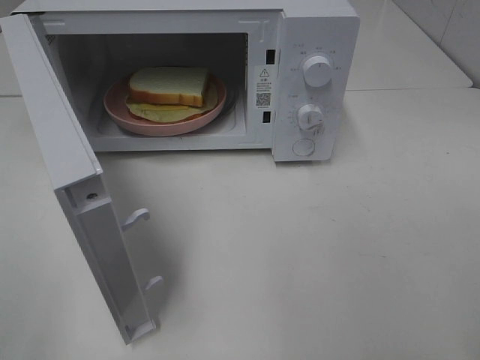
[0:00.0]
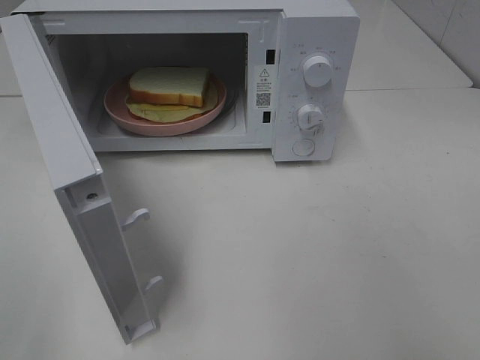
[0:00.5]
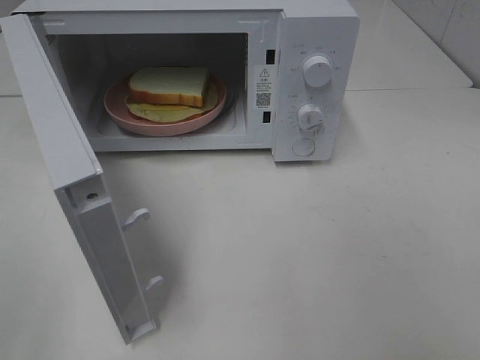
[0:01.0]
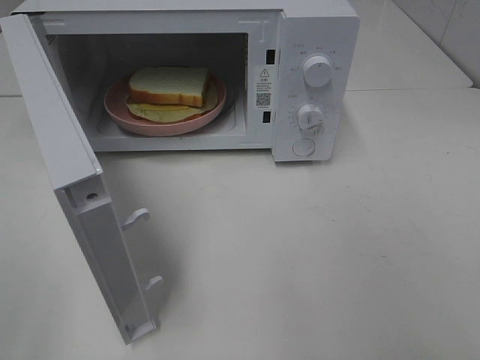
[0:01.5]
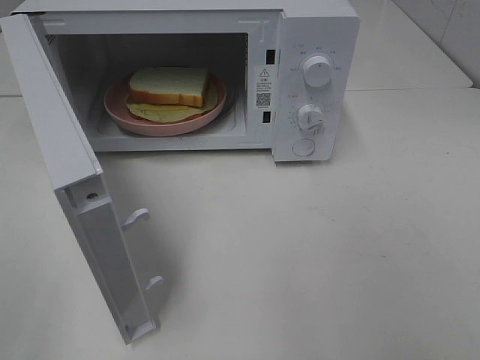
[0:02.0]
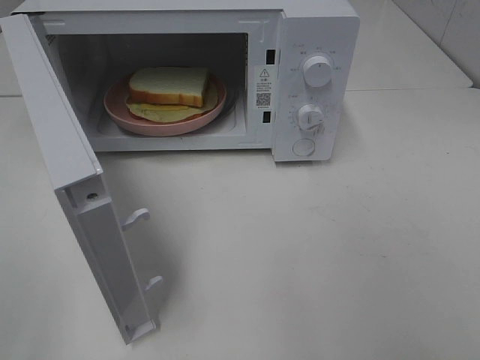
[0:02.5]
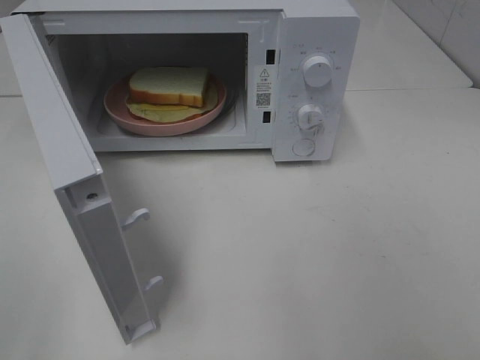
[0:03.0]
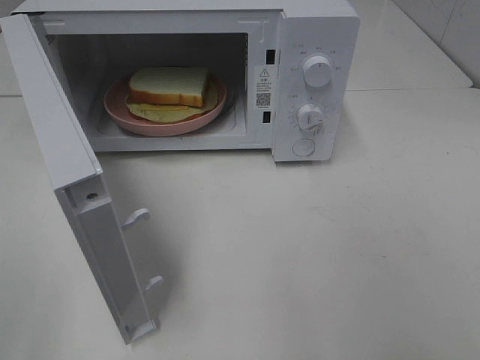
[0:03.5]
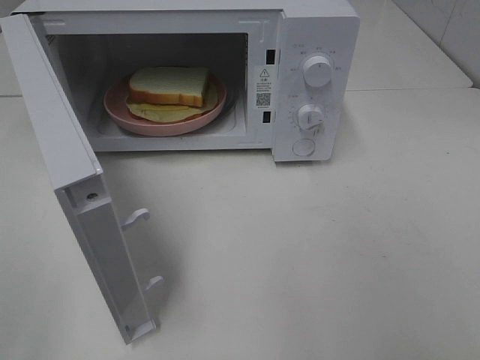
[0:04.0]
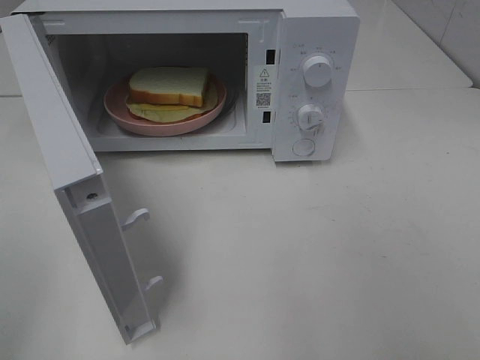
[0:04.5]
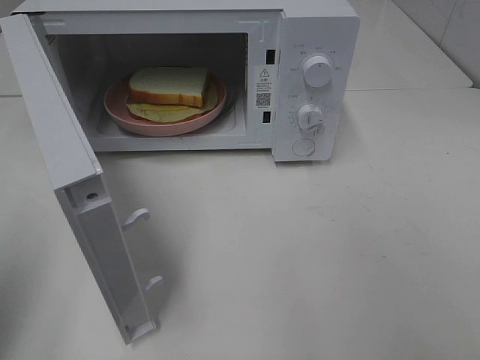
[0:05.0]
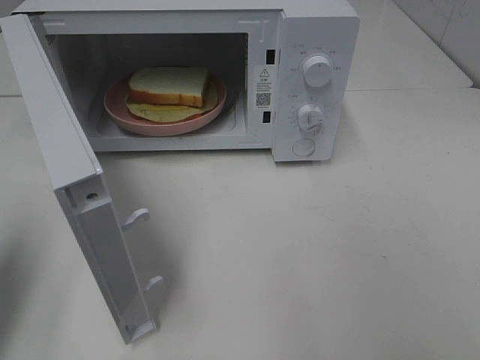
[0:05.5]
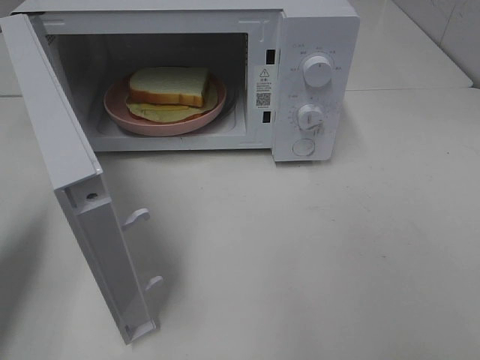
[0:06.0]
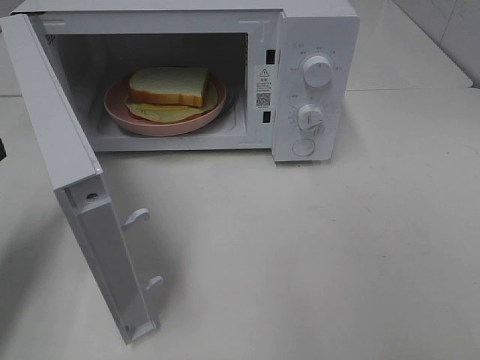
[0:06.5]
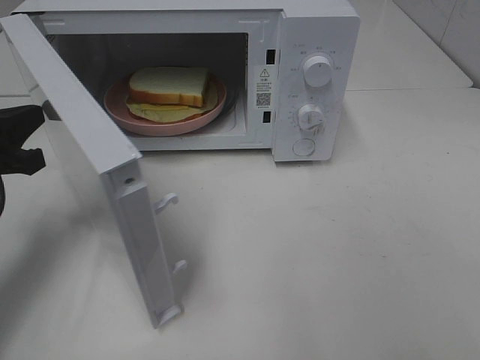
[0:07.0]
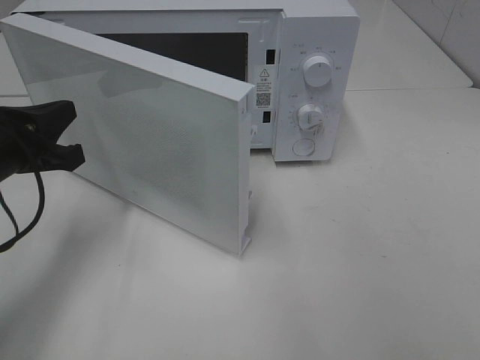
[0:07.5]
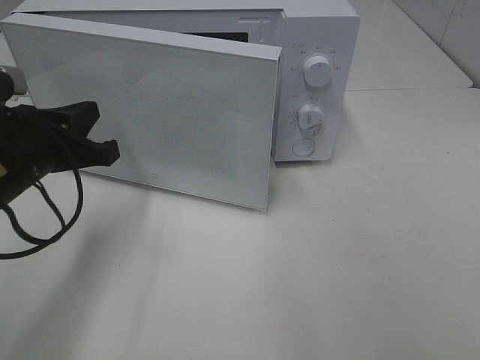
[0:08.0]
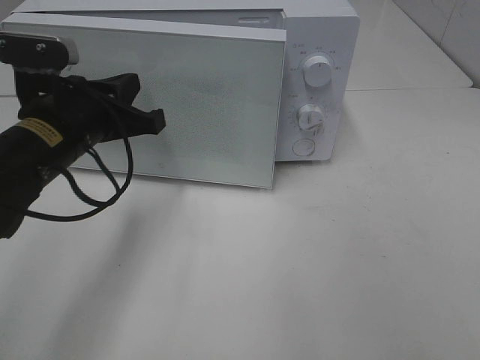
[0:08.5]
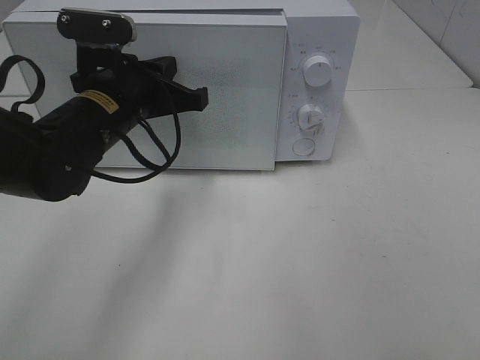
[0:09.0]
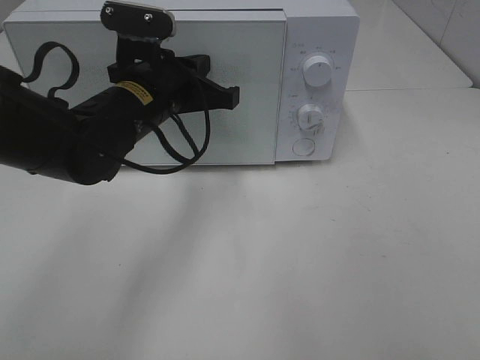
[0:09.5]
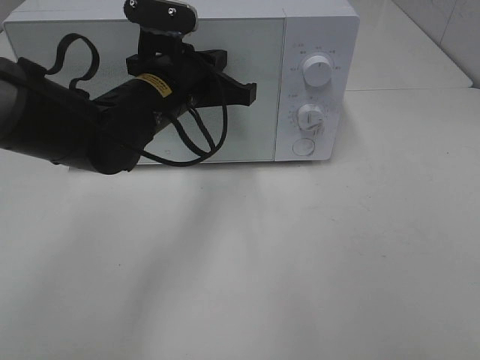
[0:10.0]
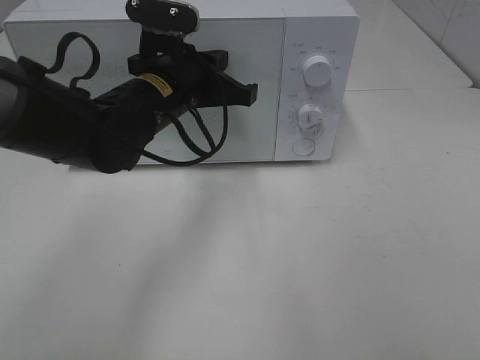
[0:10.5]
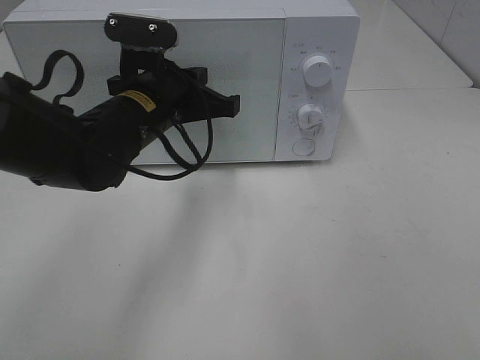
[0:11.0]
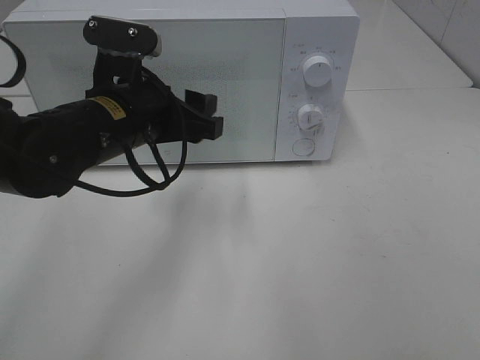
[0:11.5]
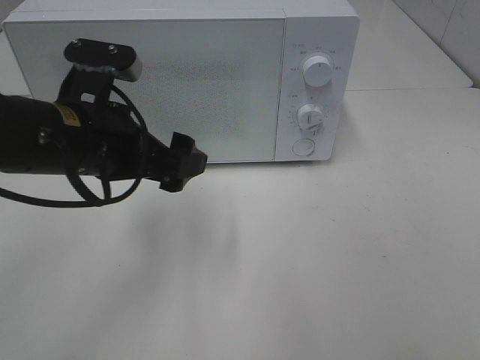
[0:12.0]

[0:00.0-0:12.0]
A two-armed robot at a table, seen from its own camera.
Task of the whole recording: Heat Sandwich.
Step, 0:00.0 to 0:11.0: Left hand: close the microwave door.
0:02.0 to 0:04.0: Both grippers stay about where they are.
0:04.0 to 0:06.0: The left gripper heads forward, covering some 20 cm, and closes up.
0:06.0 to 0:08.0: The left gripper goes about 15 cm to the right, downward and forward.
0:08.0 to 0:10.0: The left gripper heads to the right and forward, covering approximately 15 cm.
0:10.0 to 0:12.0: The left gripper is displaced backward and to the left by about 10 cm, and opens up.

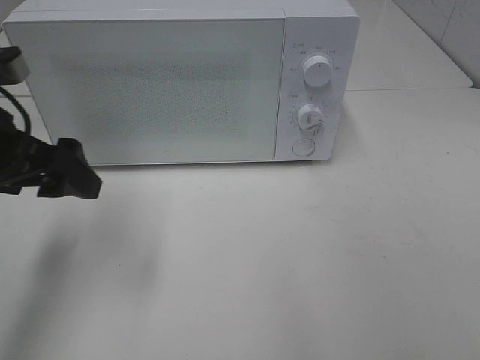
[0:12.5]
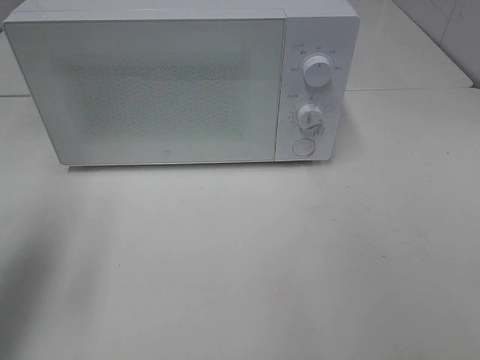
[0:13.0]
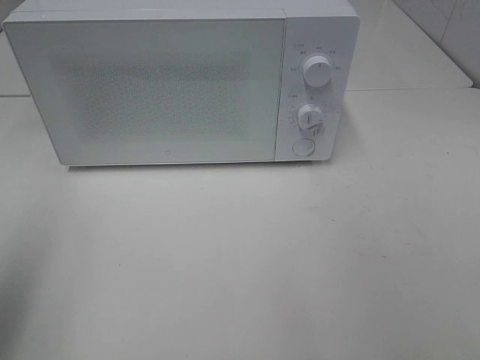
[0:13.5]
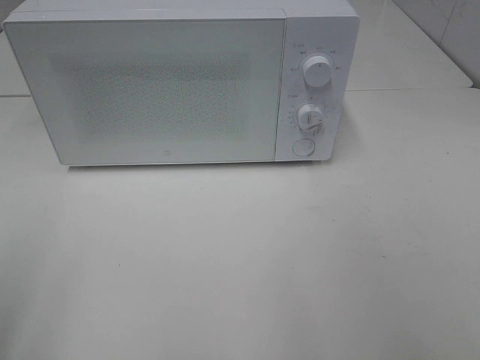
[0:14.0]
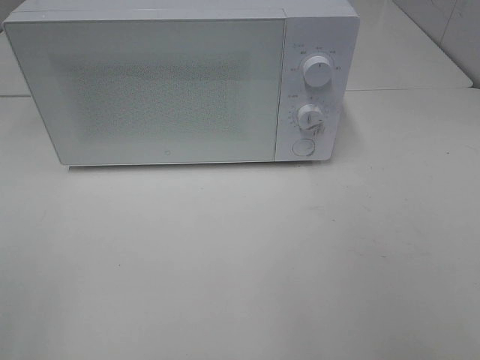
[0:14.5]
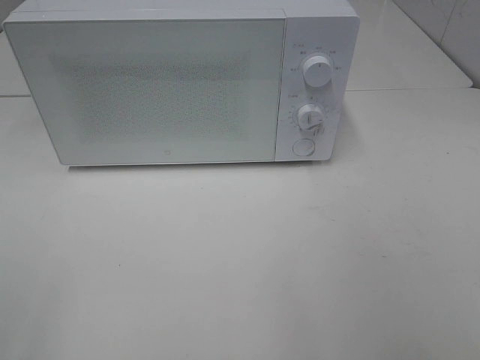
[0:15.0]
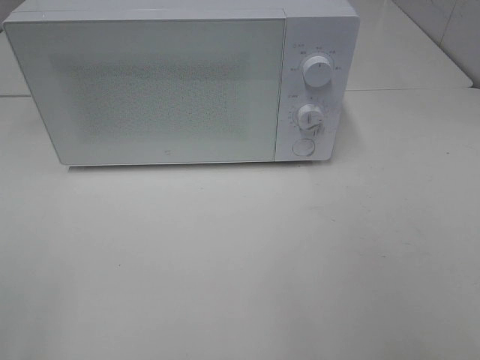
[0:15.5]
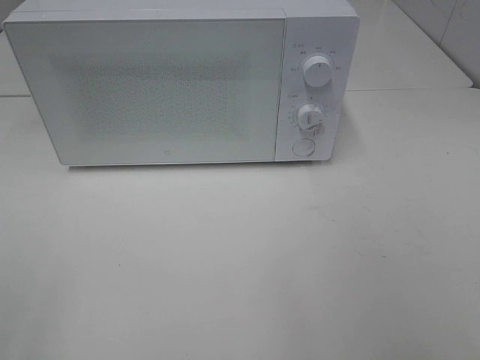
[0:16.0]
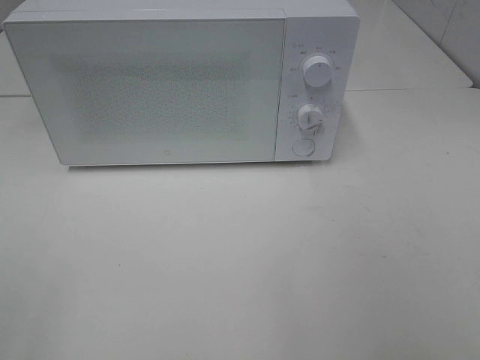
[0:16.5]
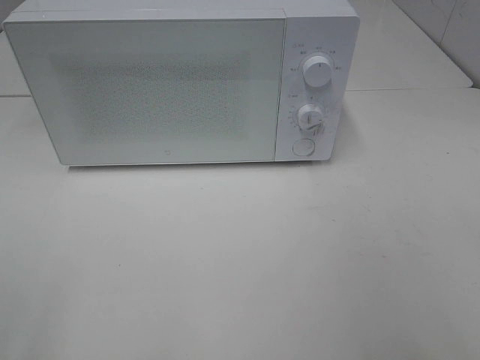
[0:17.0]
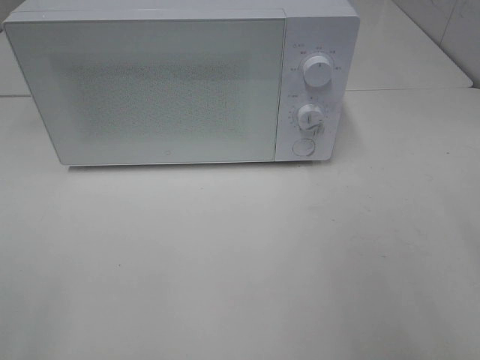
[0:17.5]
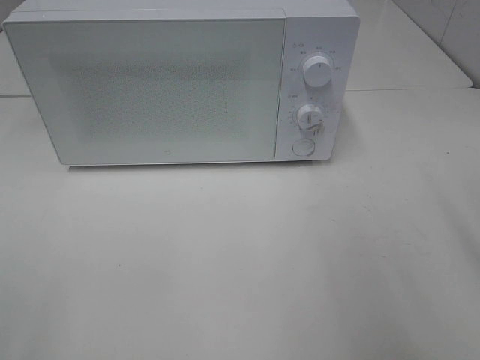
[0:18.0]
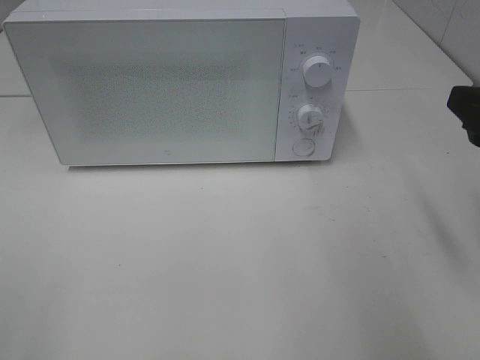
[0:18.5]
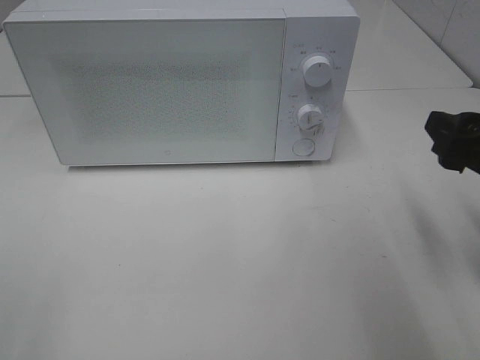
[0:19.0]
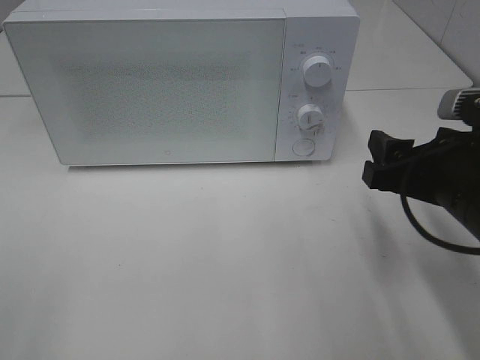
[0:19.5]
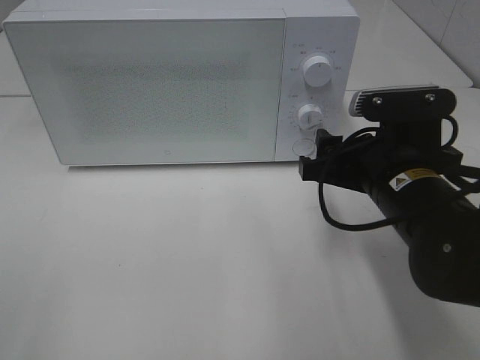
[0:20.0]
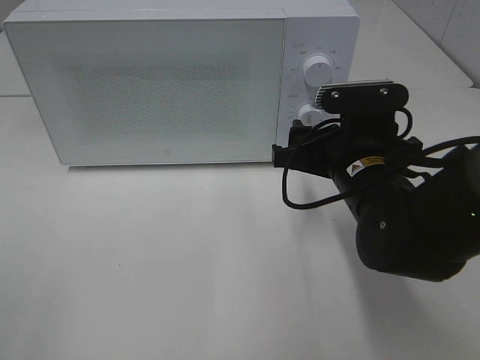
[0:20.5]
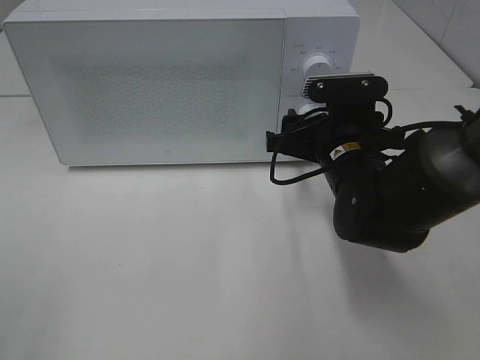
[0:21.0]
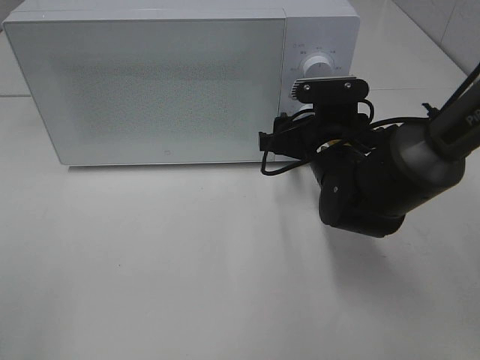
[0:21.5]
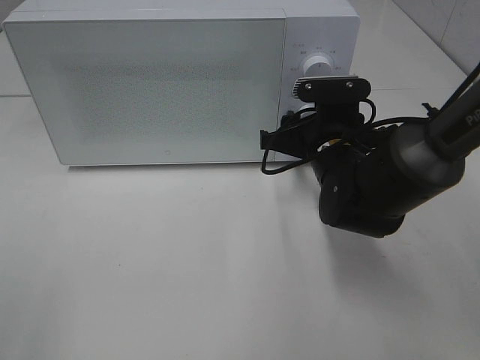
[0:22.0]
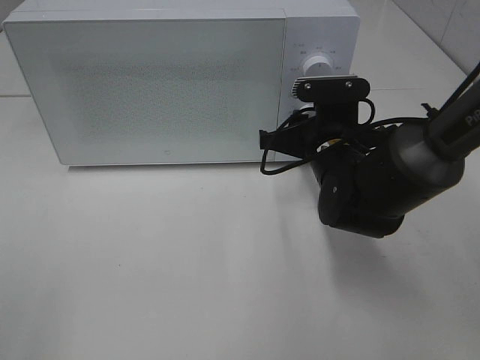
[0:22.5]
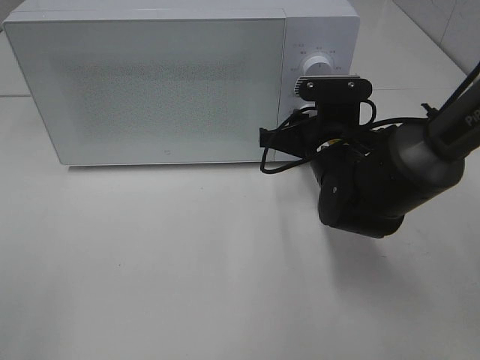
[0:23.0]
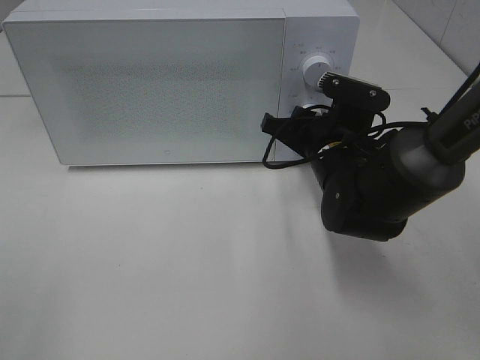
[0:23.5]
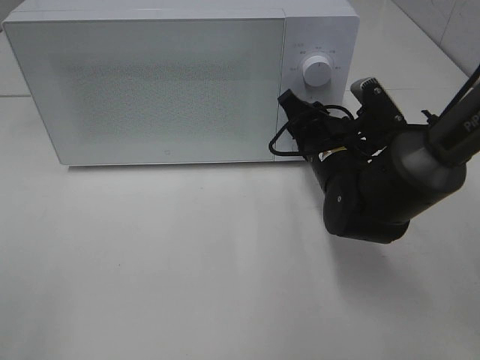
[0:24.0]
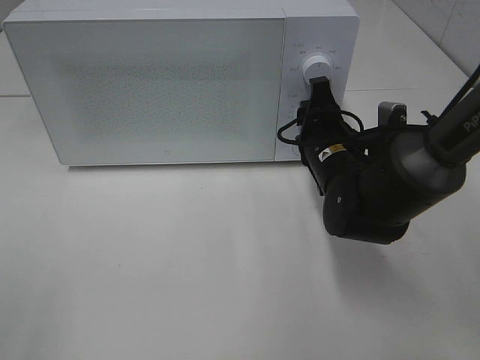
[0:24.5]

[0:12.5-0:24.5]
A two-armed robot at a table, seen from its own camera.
Task of the whole recording: Heat Sandwich.
0:12.5 to 0:14.5: The left gripper travels backward and to the left by some 25 cm.
0:16.5 to 0:18.5: The right gripper goes roughly 20 cm forward.
0:18.5 to 0:20.5: The right gripper moves to the left, downward and forward, about 20 cm.
0:20.5 to 0:22.5: The right gripper moves forward, some 5 cm, and closes its fingers.

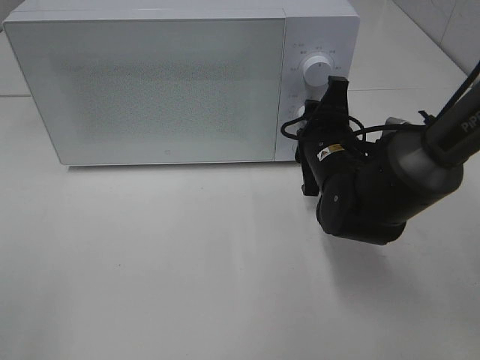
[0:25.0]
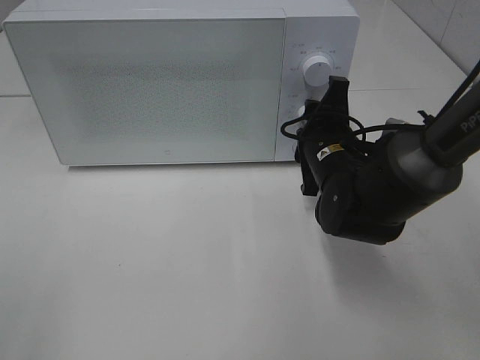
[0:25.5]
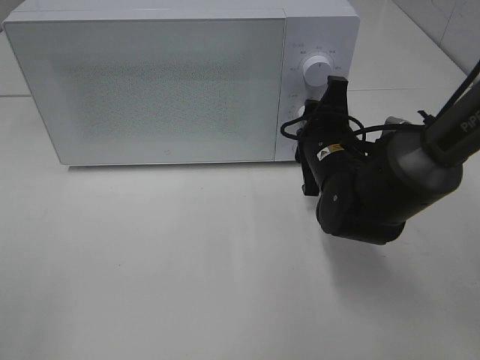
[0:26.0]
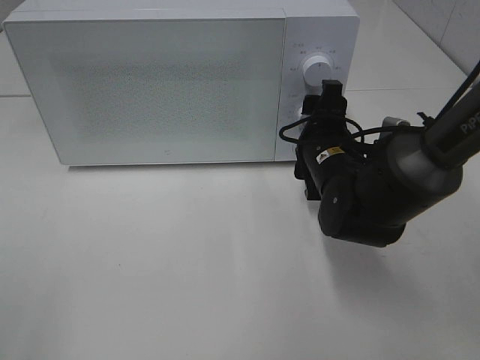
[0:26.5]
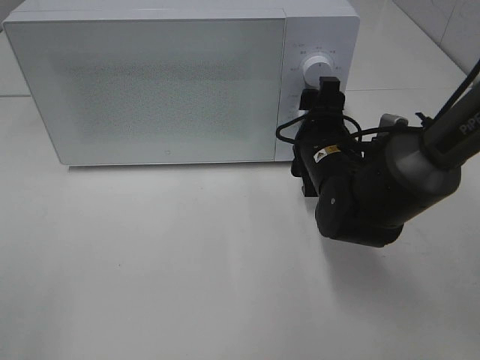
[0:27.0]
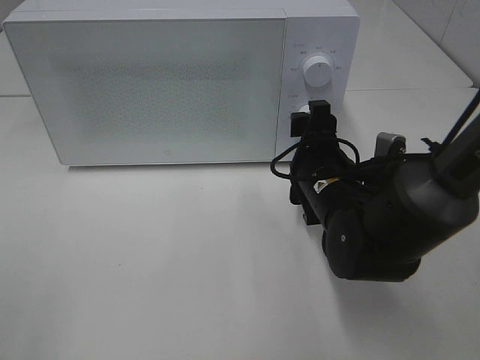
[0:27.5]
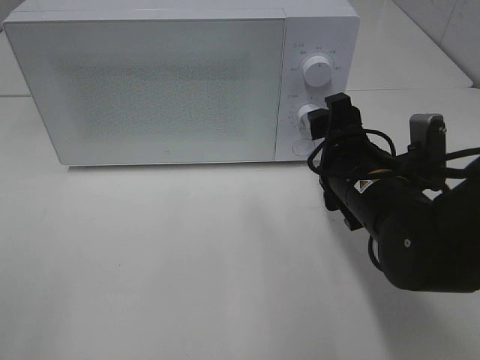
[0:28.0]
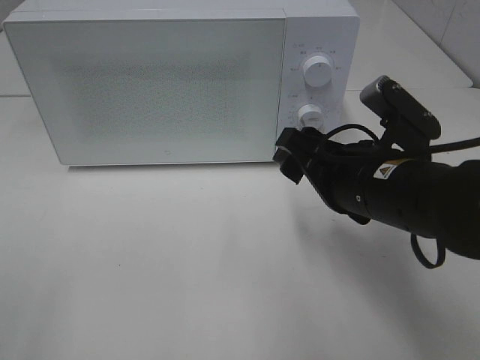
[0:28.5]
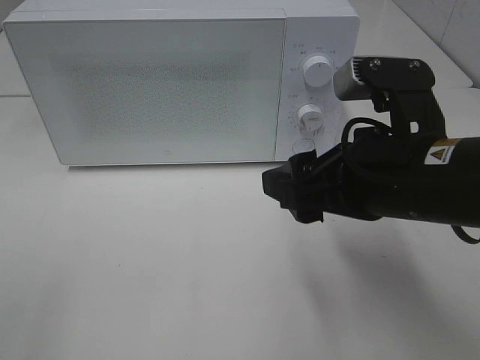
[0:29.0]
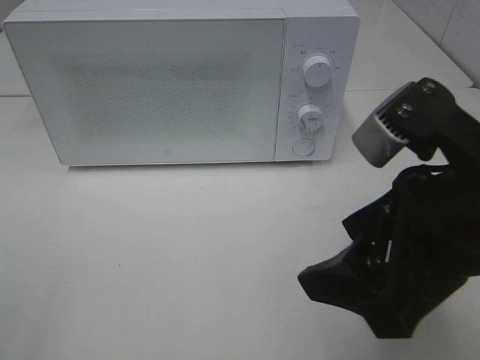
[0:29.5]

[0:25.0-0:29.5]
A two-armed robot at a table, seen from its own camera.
Task of the whole recording: Heat Sandwich.
Step, 0:25.0 to 0:27.0: Right hand: twist timer button.
0:25.0 to 0:27.0: The right gripper opens.
0:27.0 to 0:29.5: The right gripper travels backward and upward by roughly 25 cm.
